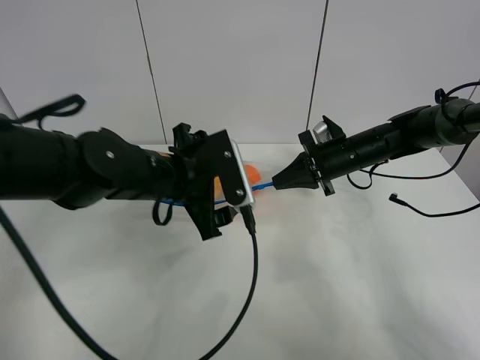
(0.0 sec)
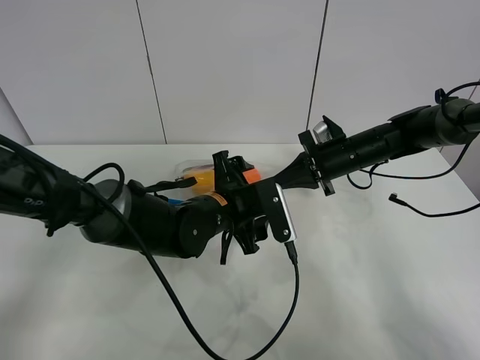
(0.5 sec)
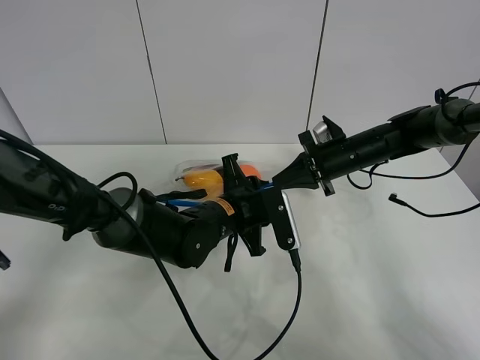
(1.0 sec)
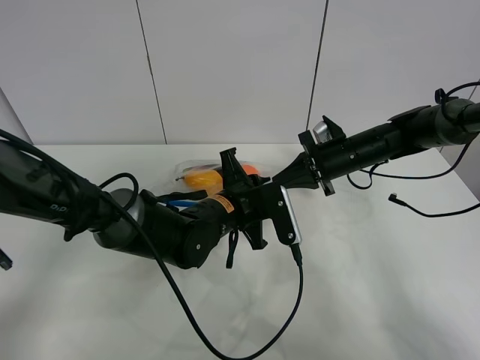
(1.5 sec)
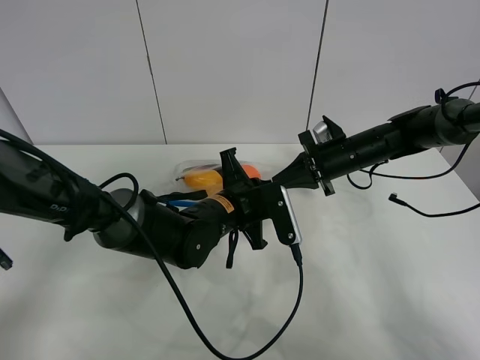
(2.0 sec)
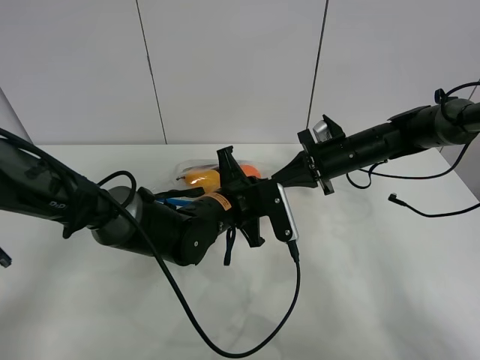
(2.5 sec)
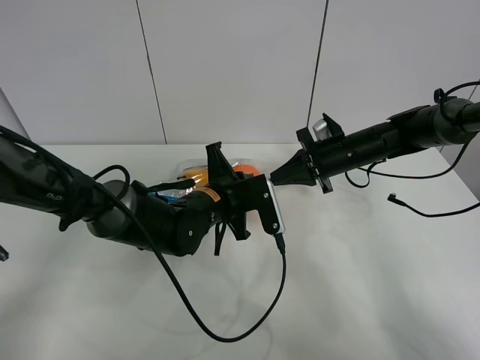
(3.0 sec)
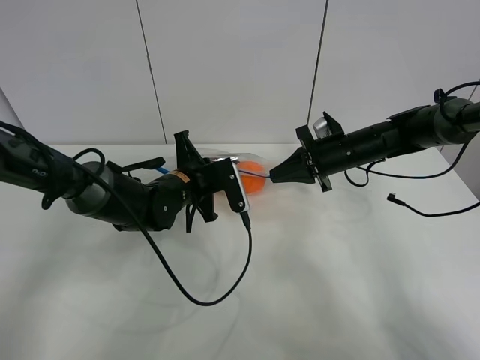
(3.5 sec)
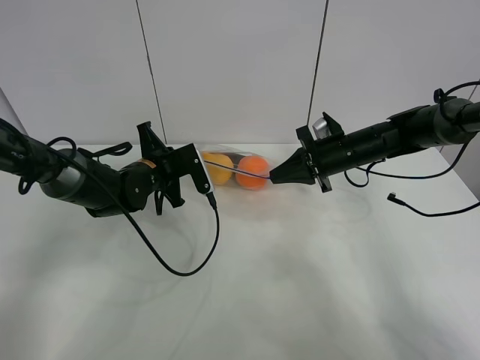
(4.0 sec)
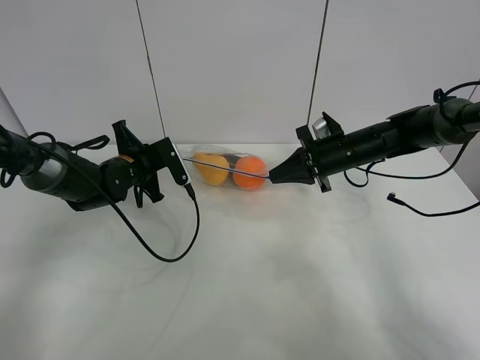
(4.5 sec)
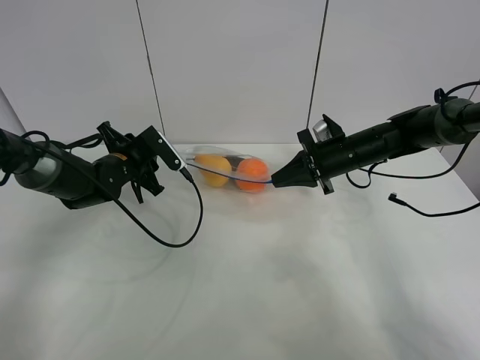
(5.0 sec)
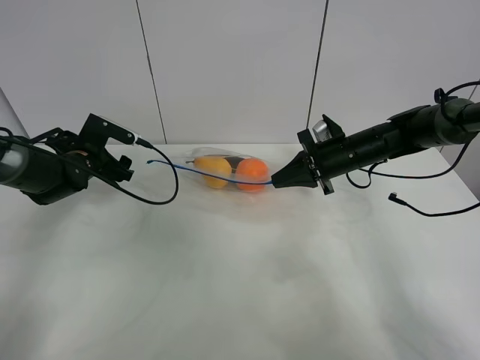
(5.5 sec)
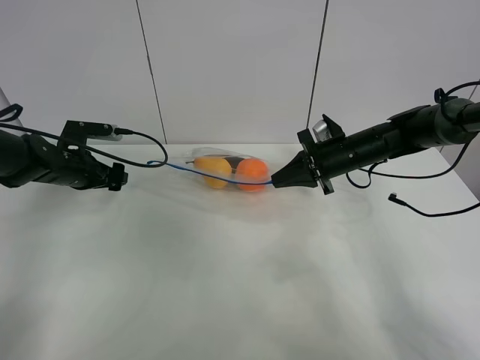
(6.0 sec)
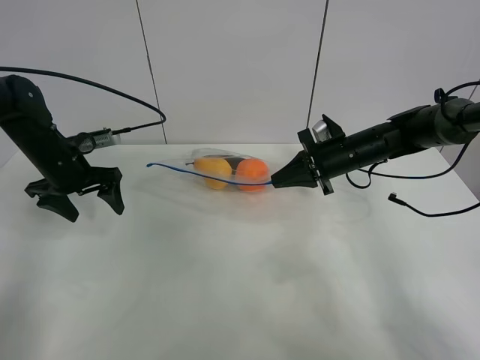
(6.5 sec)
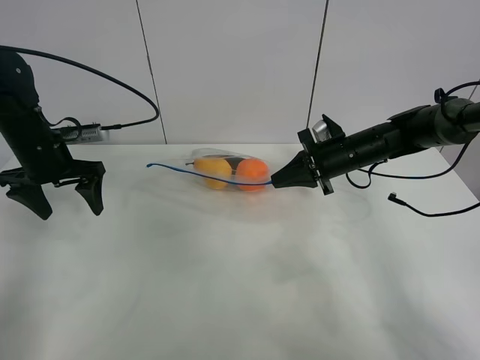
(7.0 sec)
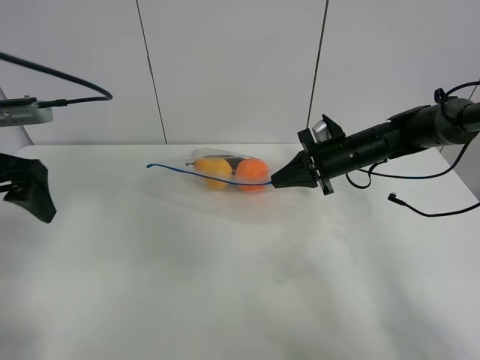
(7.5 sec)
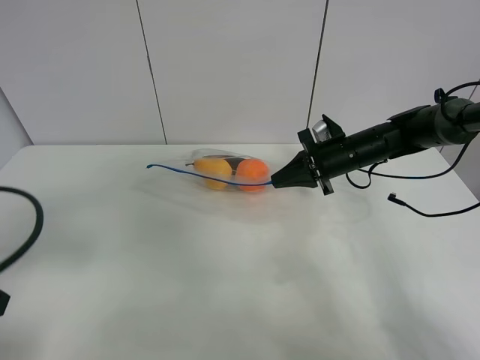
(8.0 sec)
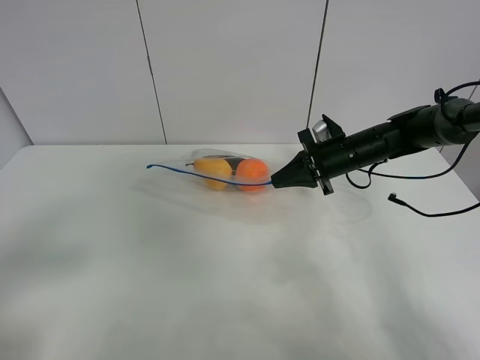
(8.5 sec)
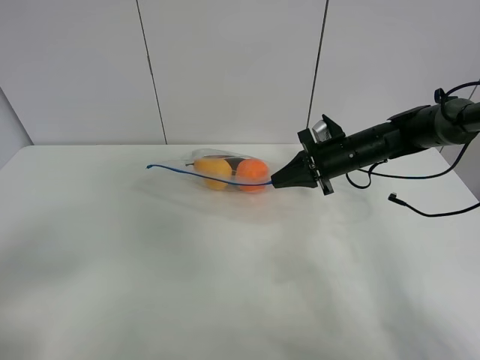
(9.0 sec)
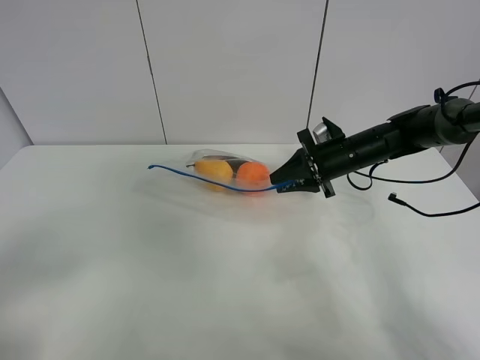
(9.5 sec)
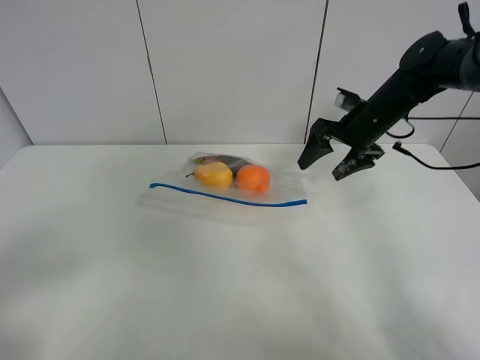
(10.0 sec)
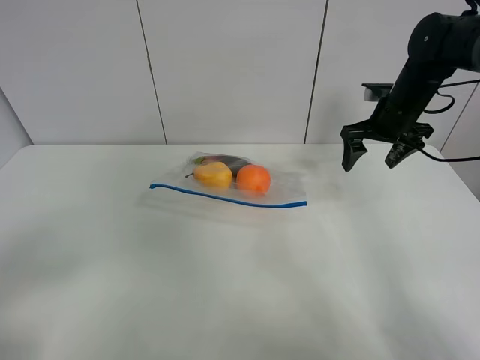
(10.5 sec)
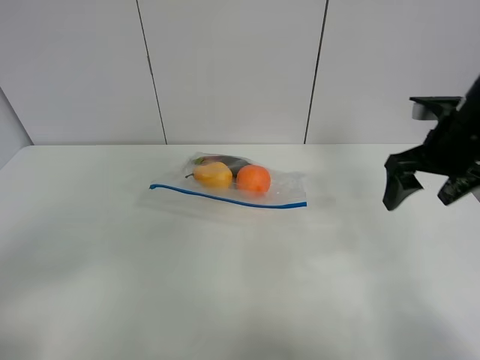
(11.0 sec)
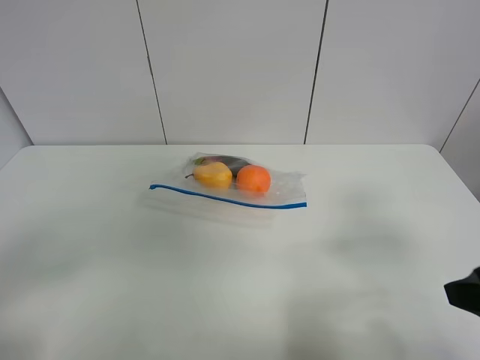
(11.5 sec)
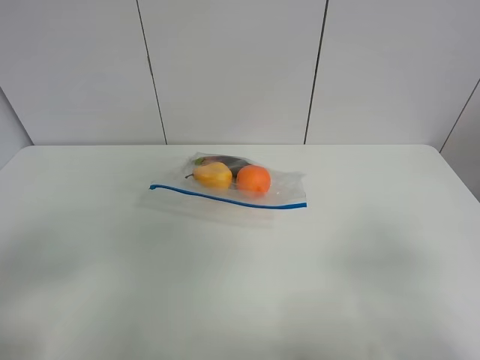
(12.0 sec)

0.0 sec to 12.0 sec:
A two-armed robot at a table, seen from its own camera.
Step, 0.0 sec to 5.0 sec: Pull the fruit bag with left gripper.
0.0 sec to 2.0 sec: The left gripper goes about 10 cm downward and to the right, and closes up.
2.0 sec to 4.0 sec: The left gripper heads to the left and forward, covering about 15 cm.
4.0 sec to 6.0 sec: The left gripper is displaced to the left by approximately 15 cm, and opens.
6.0 sec to 8.0 sec: The left gripper moves backward and upward, some 30 cm.
8.0 sec to 10.0 sec: The left gripper goes some 10 cm backward. Meanwhile the right gripper is displaced upward by some 5 cm, and opens up.
10.0 sec to 12.0 sec: The right gripper shifts approximately 40 cm backward.

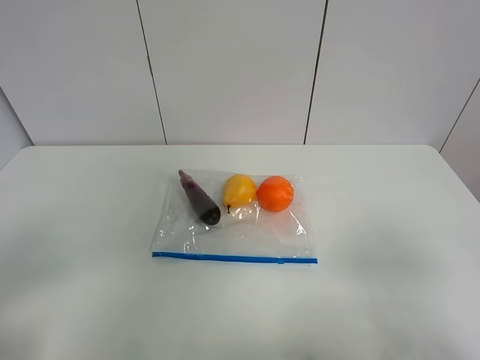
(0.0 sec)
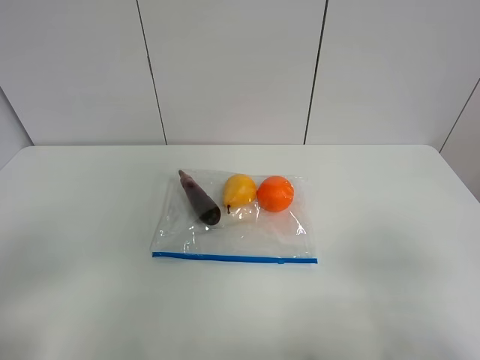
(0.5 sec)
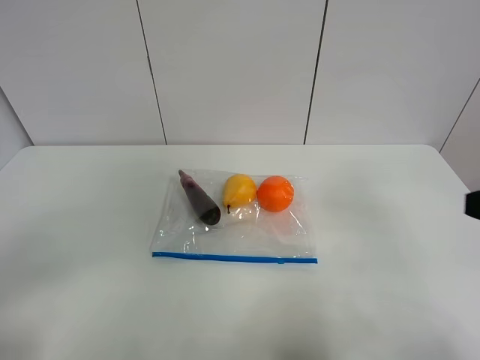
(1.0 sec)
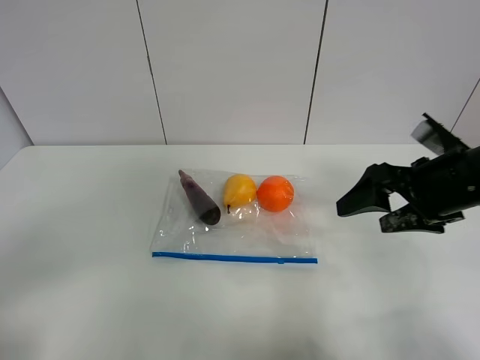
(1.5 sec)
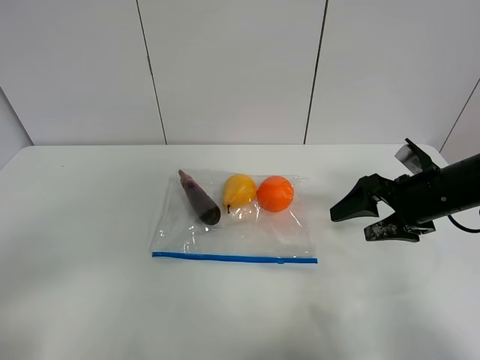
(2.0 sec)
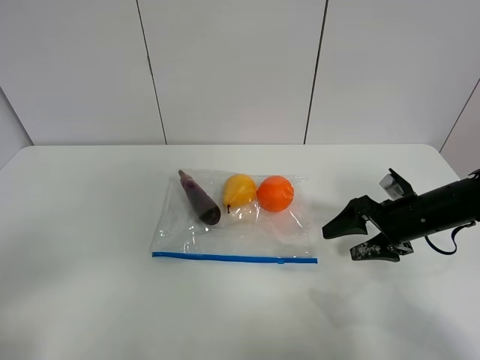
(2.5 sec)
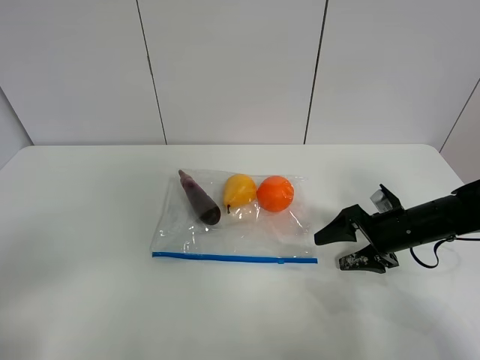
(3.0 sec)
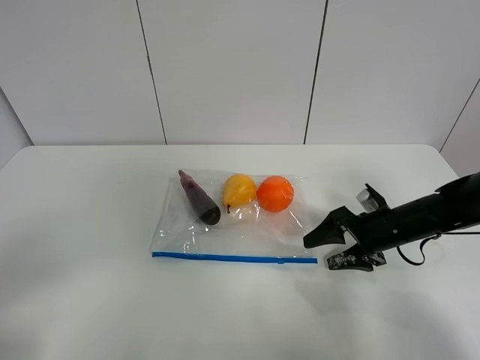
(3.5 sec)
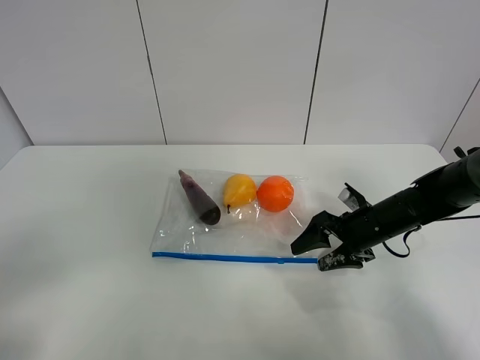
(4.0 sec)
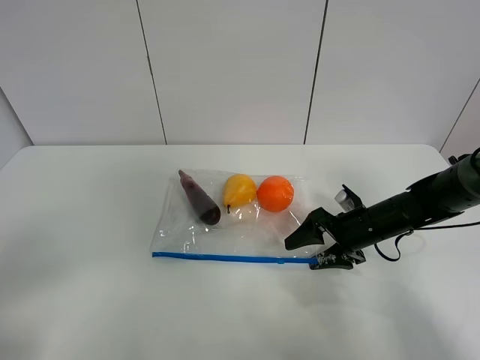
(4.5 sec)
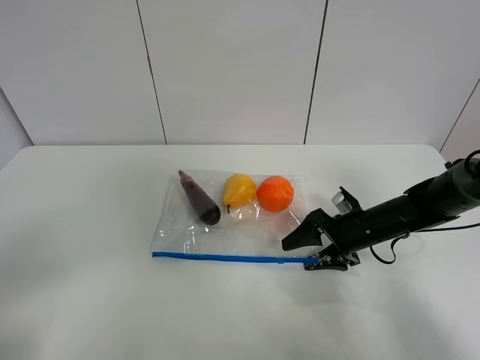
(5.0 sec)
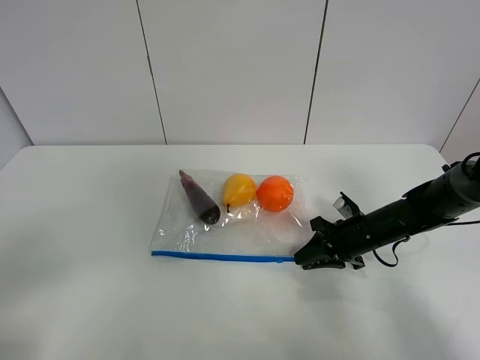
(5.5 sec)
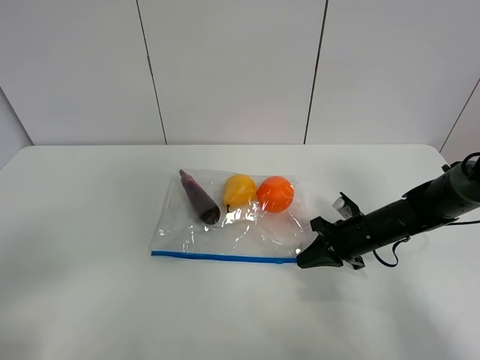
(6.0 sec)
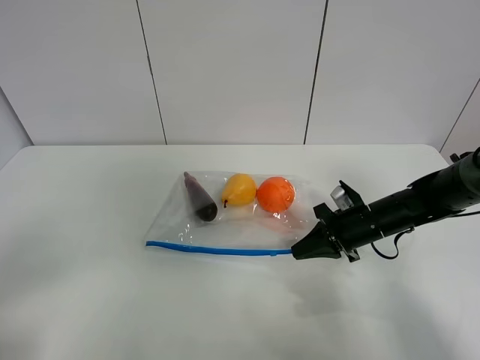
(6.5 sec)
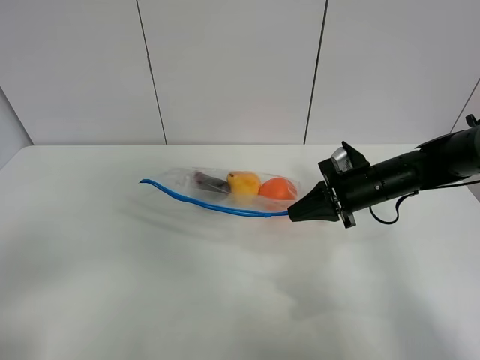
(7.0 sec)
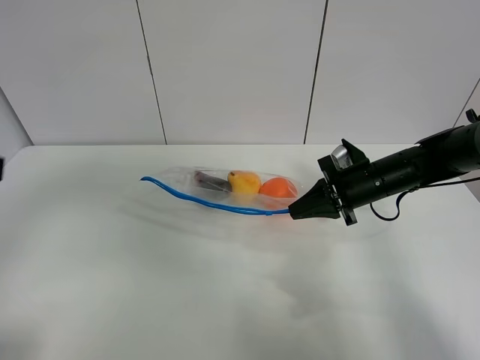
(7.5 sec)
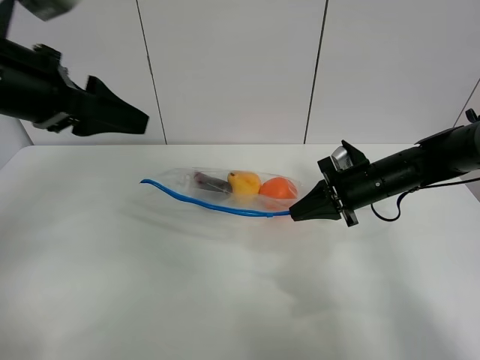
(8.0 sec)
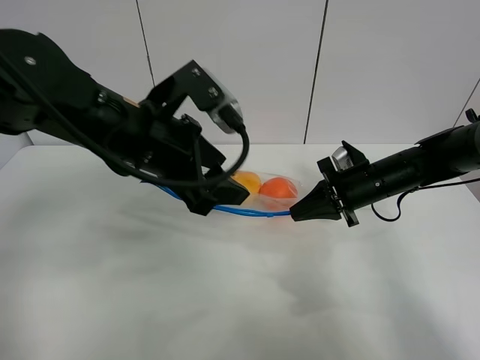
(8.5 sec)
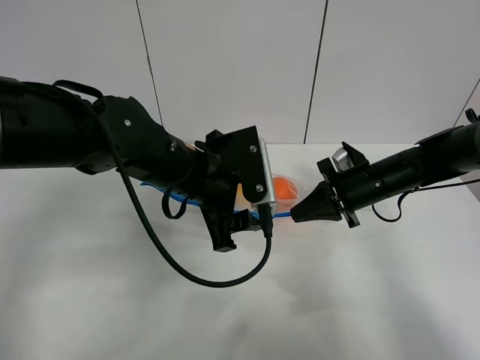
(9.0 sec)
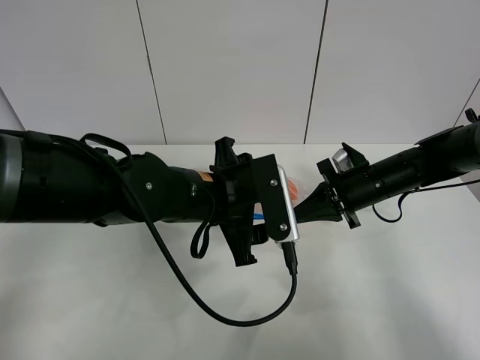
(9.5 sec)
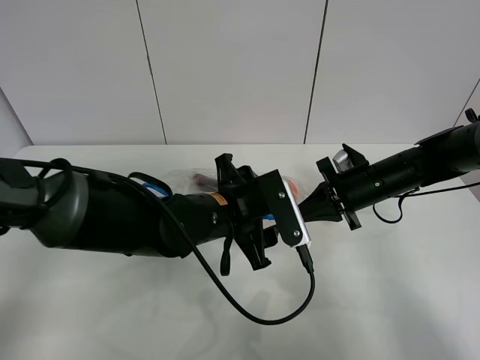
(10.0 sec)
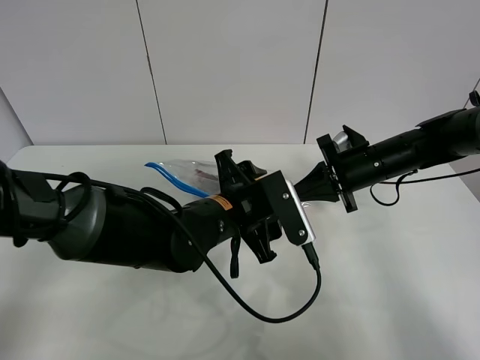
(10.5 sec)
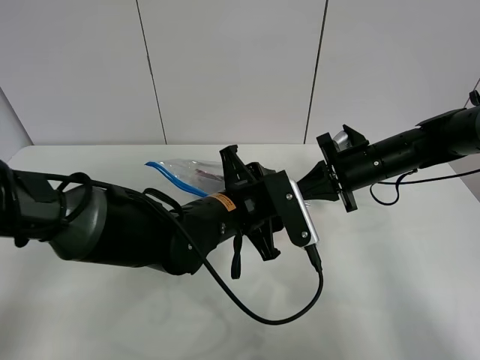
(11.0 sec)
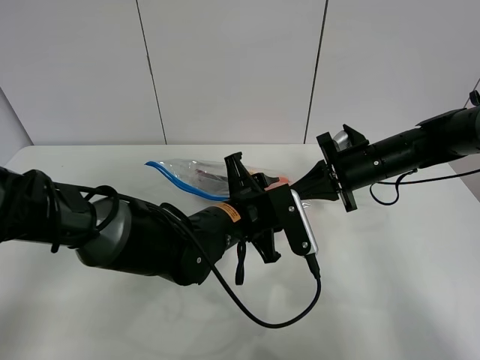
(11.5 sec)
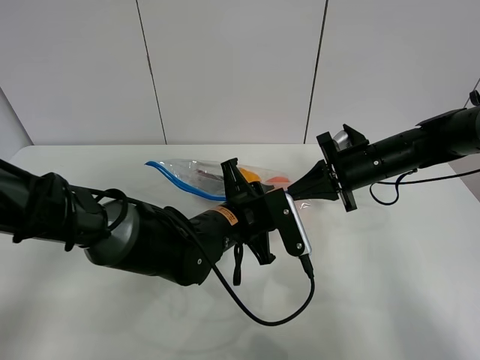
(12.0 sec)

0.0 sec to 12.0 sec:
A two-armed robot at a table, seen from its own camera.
Step, 0.0 sec to 5.5 sec: Grasp the fruit bag with right gripper.
Step, 6.0 sec to 7.0 sec: Lift the fruit bag with your right gripper.
0.0 sec to 2.0 sec: The right gripper shifts approximately 25 cm forward.
2.0 sec to 4.0 sec: The right gripper goes some 10 cm downward.
4.0 sec to 6.0 sec: The right gripper closes up.
6.0 sec to 8.0 sec: The right gripper shifts about 10 cm upward, while the left gripper is displaced forward by roughly 25 cm.
8.0 sec to 10.0 sec: The left gripper heads to the right and downward, covering approximately 25 cm.
10.0 sec to 12.0 sec: The left gripper closes.

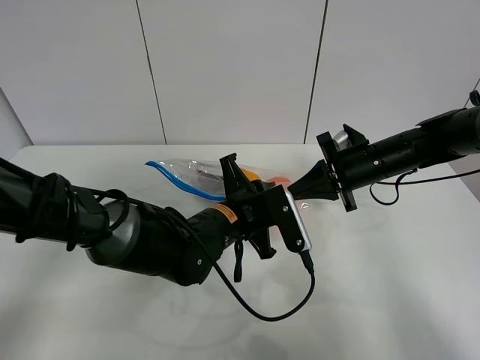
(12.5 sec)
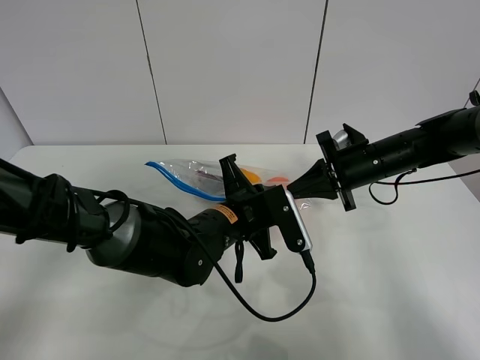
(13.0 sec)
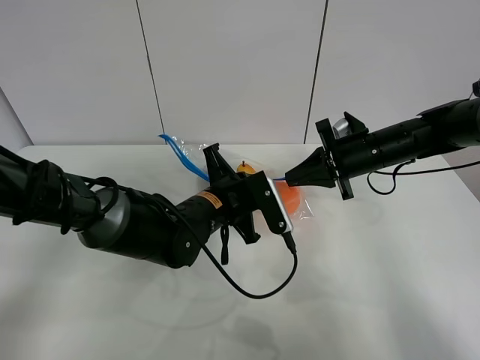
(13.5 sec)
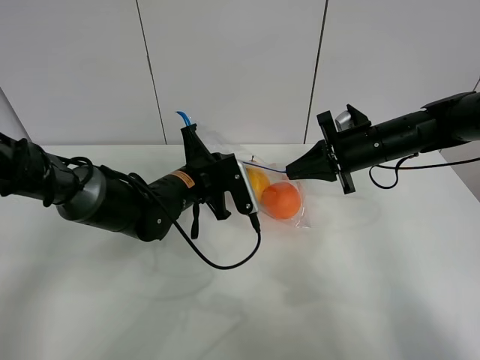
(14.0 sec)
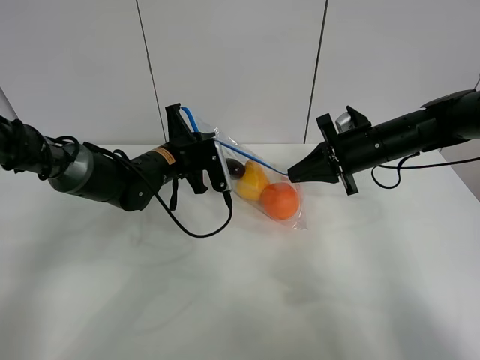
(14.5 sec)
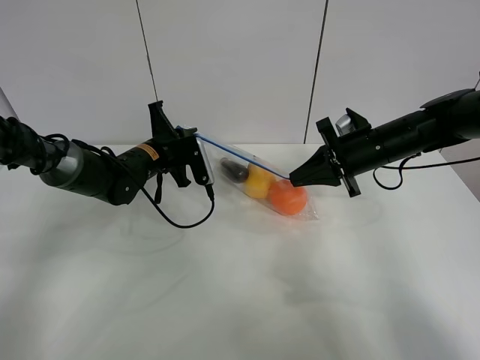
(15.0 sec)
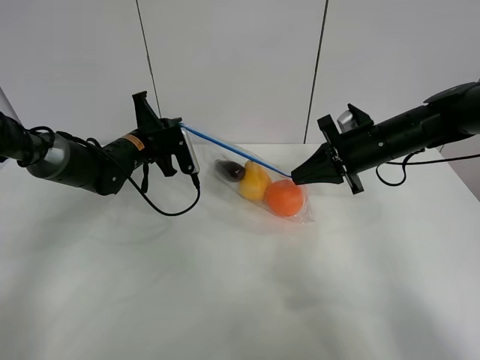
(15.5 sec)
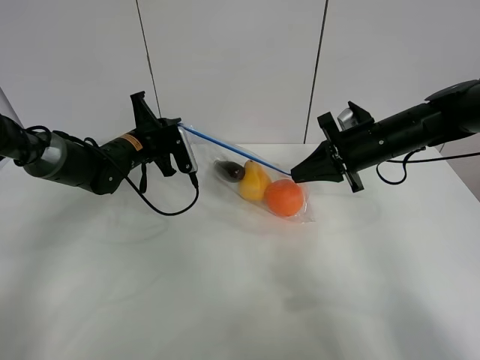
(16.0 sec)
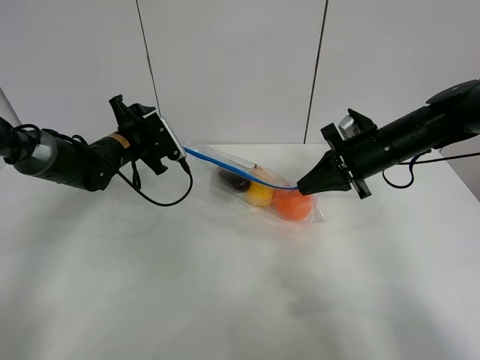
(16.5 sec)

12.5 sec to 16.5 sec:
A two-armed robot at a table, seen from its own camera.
Step, 12.5 sec to 16.0 sec: Pull the fruit bag with left gripper.
12.5 sec to 14.5 sec: The left gripper heads forward and to the left, covering approximately 15 cm.
14.5 sec to 16.5 sec: The left gripper heads to the left, covering some 10 cm, and opens up.
